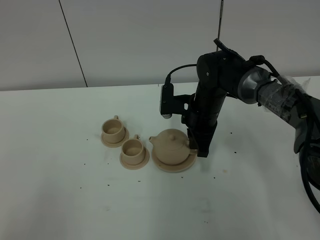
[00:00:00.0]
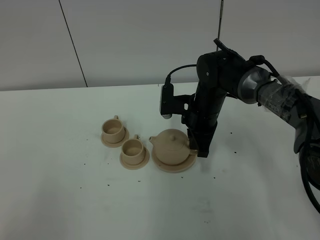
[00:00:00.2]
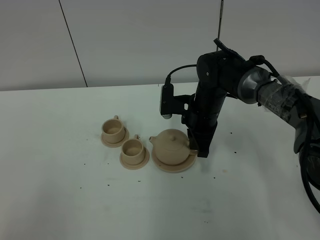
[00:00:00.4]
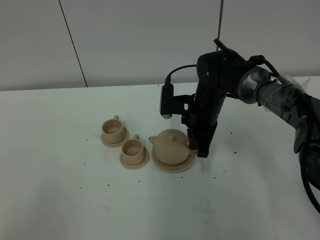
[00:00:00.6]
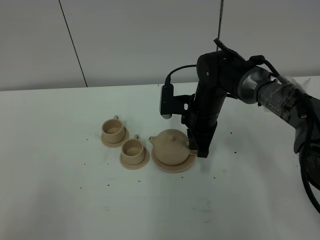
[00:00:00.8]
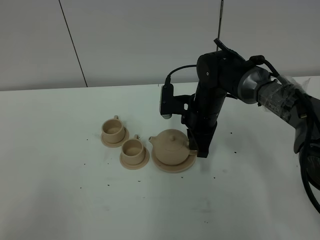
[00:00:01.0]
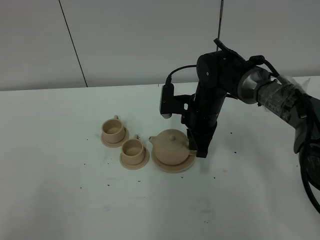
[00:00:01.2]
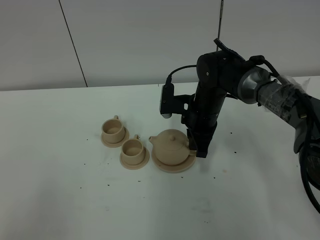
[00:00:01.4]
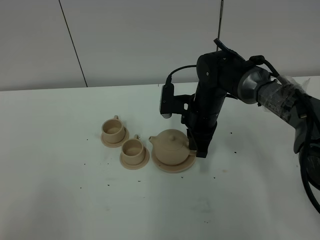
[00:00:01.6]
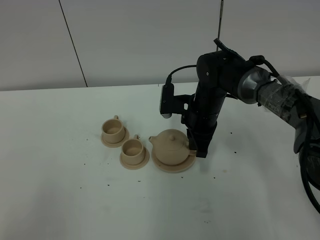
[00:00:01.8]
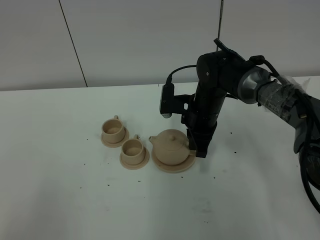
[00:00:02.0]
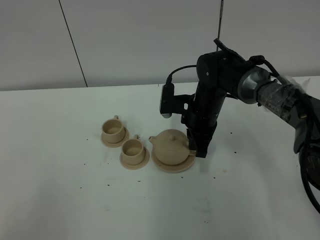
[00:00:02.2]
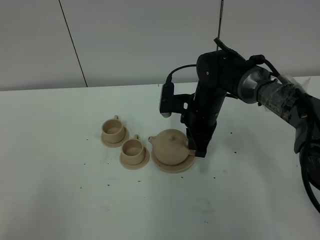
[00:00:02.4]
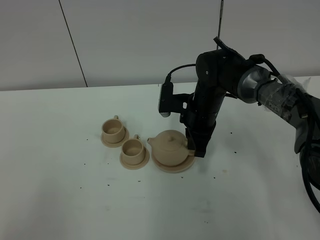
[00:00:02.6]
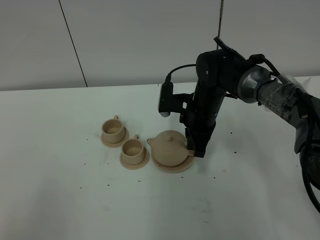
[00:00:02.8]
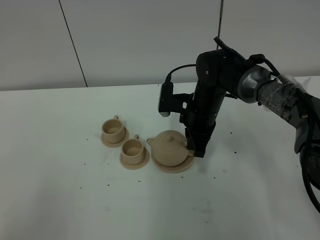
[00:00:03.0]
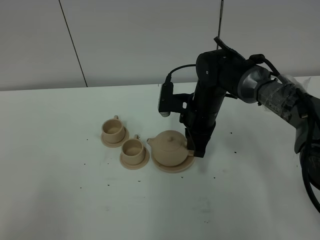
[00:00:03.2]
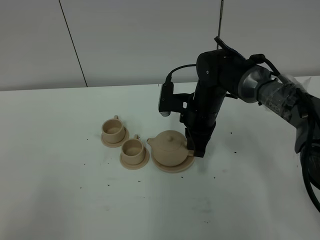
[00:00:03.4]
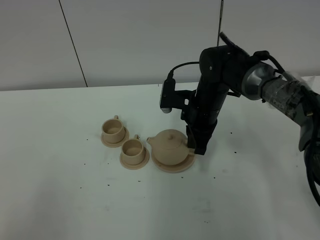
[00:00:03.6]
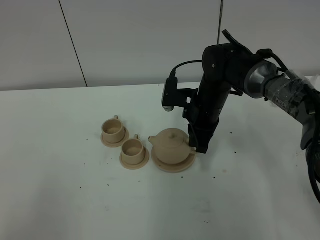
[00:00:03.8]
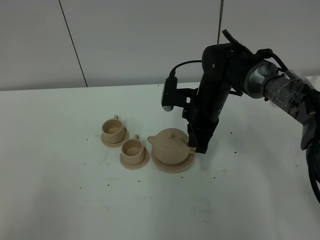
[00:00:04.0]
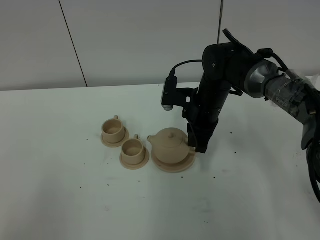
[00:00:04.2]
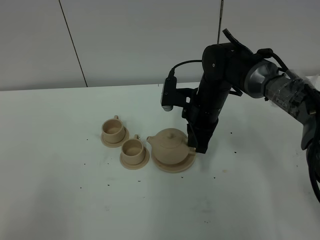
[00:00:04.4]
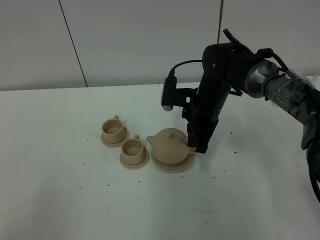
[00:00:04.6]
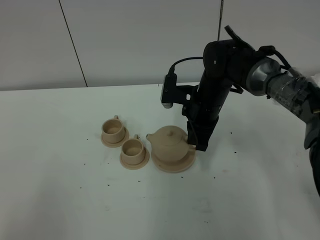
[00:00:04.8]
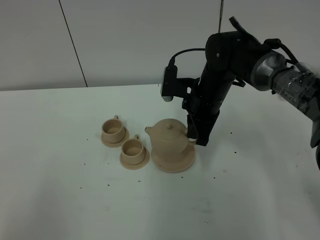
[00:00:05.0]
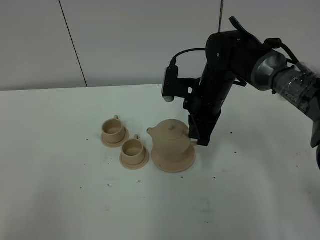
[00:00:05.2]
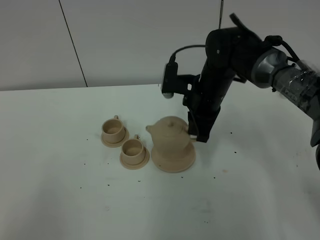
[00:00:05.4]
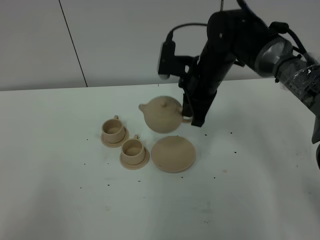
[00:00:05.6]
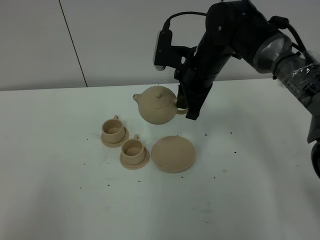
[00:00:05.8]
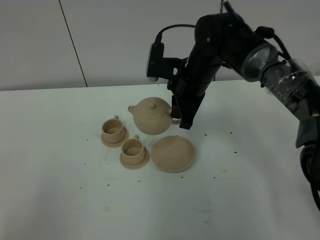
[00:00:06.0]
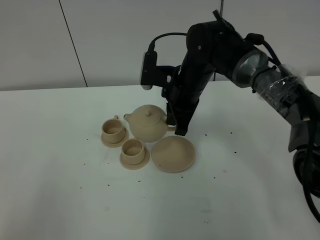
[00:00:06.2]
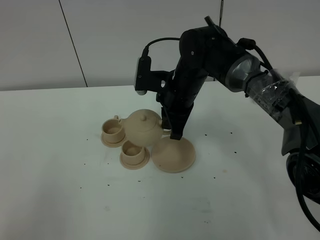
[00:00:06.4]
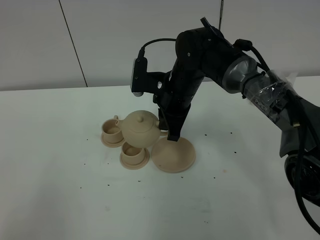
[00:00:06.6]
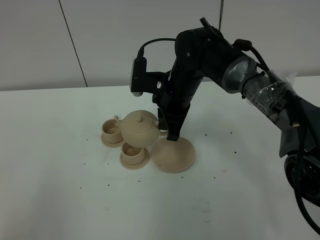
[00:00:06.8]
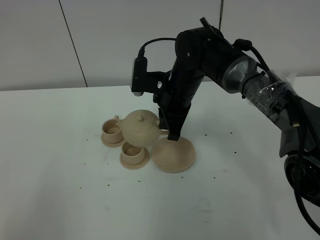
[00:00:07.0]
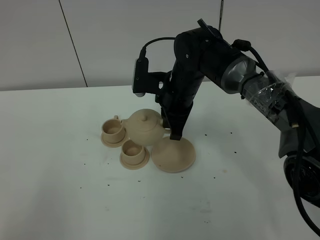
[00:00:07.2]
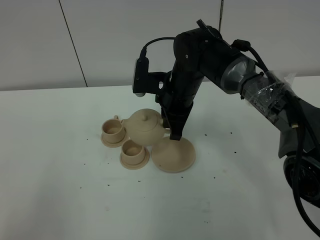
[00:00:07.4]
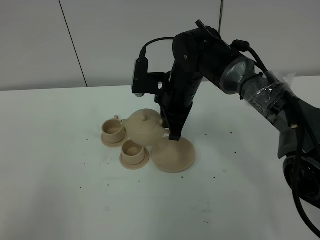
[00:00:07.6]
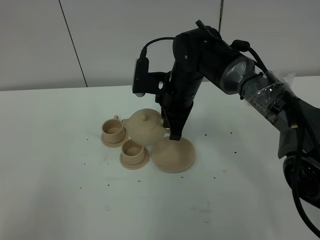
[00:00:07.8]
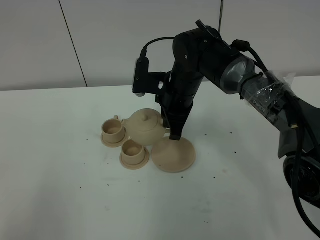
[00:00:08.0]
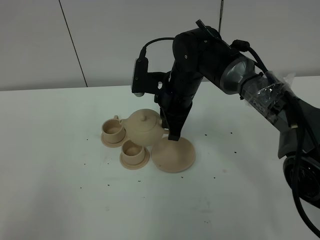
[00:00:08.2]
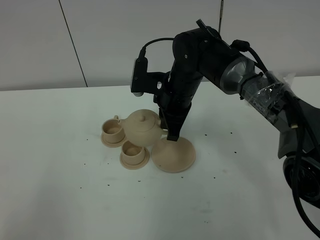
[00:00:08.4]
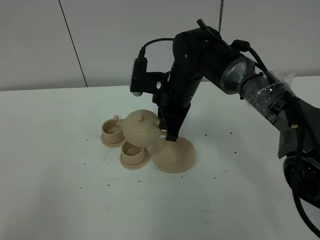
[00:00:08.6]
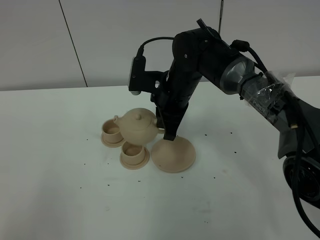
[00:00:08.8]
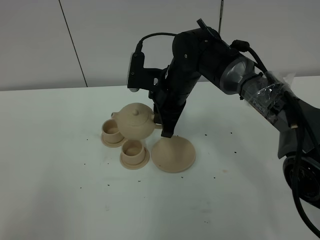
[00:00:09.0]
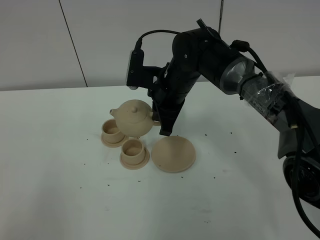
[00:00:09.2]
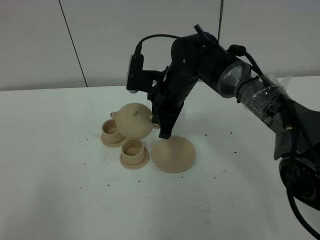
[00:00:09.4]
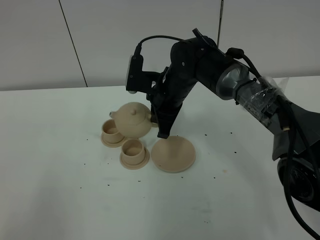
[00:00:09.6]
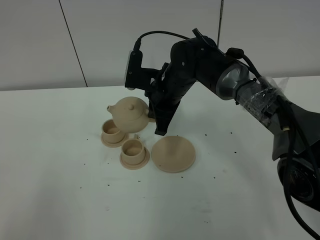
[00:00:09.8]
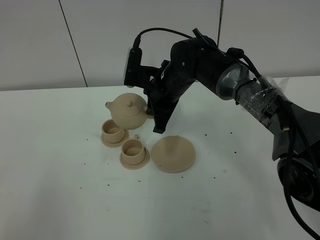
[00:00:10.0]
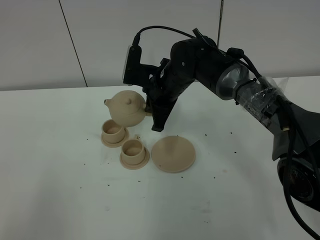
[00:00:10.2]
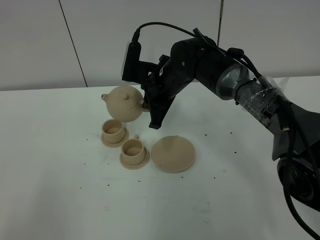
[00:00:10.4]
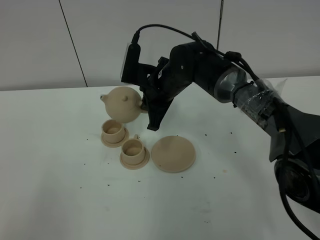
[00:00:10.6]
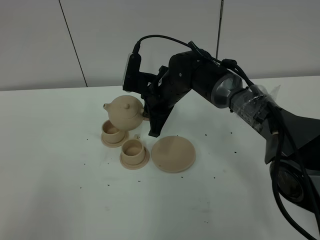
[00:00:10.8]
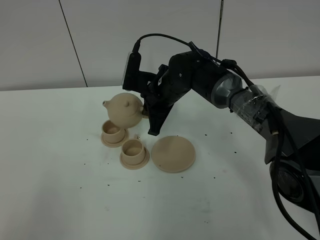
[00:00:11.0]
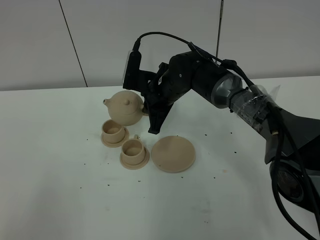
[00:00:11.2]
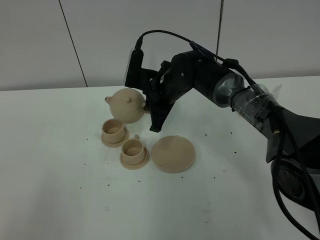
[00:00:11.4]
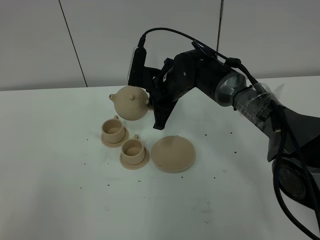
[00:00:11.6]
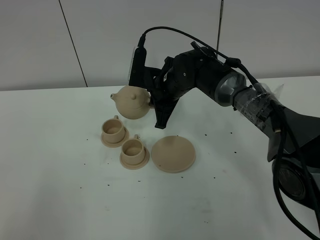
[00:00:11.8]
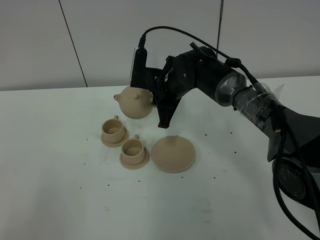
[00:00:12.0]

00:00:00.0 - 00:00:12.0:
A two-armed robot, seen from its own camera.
Task of the whole recording: grasp the brown teapot and pour the tea into the two brown teacups one by one, put the brown teapot back in its original place.
Step, 00:00:00.0 - 00:00:05.2: Pick up the teapot with the right gripper.
00:00:00.0 - 00:00:03.0: The two grippers keep their place.
00:00:03.0 - 00:00:04.4: Both grippers stay about where they are.
00:00:04.4 - 00:00:06.0: The right gripper travels upward by about 5 cm.
00:00:06.0 - 00:00:10.4: The grippers stay close to where they were, moving slightly.
00:00:10.4 - 00:00:12.0: There are only small adjustments of the grippers.

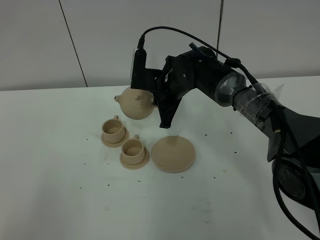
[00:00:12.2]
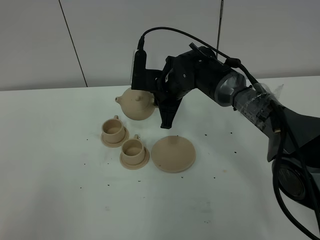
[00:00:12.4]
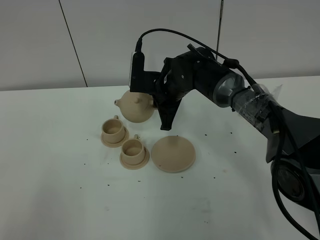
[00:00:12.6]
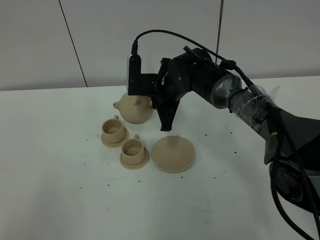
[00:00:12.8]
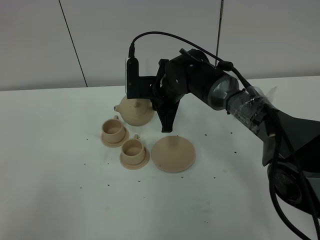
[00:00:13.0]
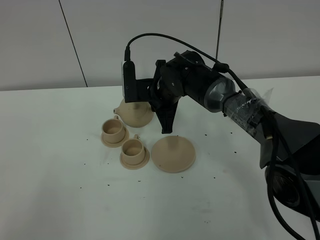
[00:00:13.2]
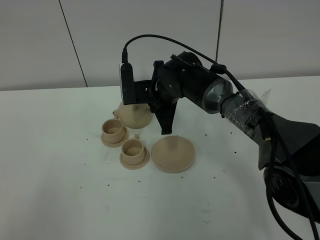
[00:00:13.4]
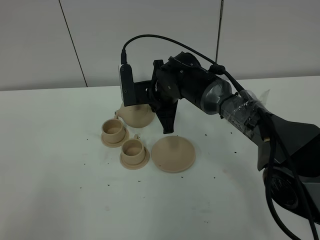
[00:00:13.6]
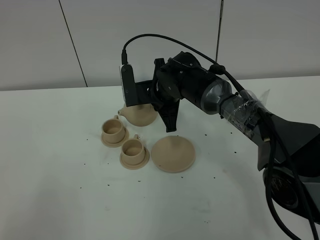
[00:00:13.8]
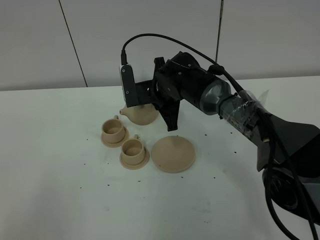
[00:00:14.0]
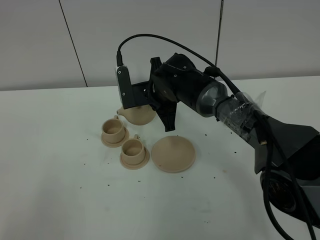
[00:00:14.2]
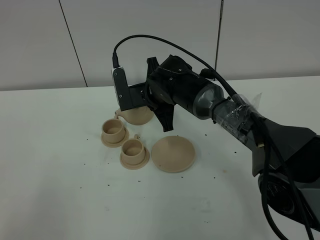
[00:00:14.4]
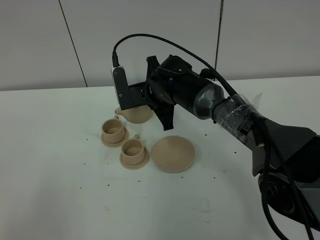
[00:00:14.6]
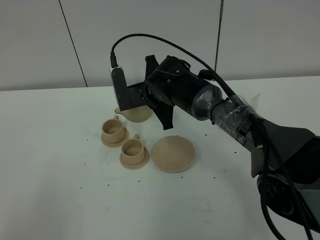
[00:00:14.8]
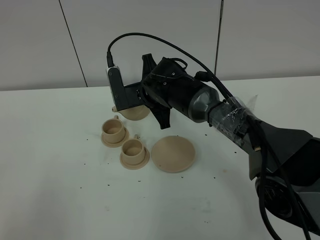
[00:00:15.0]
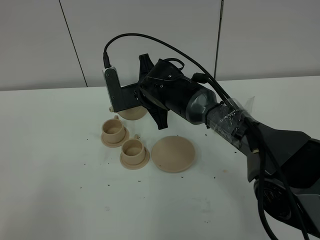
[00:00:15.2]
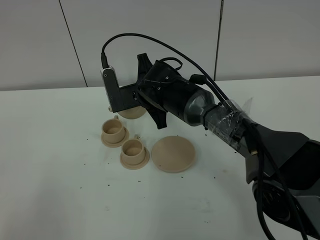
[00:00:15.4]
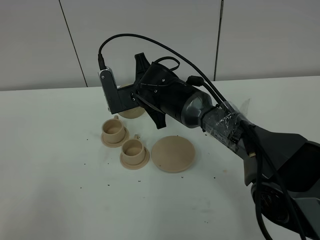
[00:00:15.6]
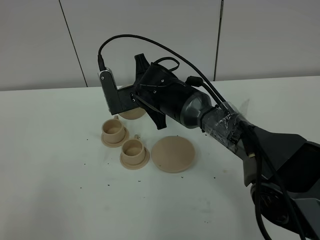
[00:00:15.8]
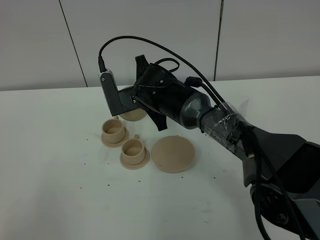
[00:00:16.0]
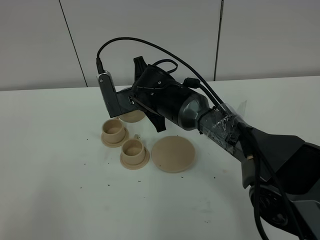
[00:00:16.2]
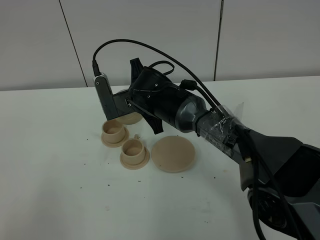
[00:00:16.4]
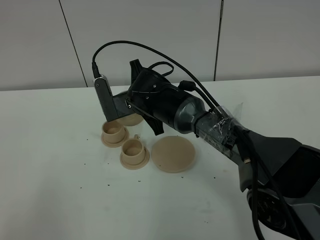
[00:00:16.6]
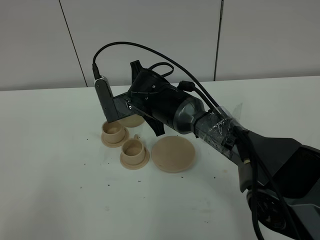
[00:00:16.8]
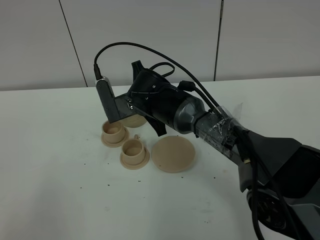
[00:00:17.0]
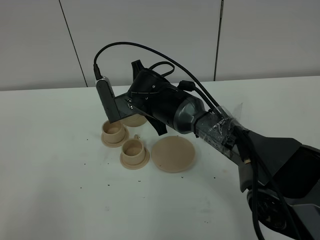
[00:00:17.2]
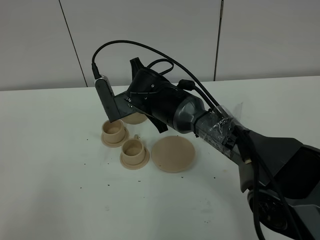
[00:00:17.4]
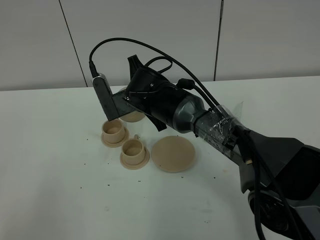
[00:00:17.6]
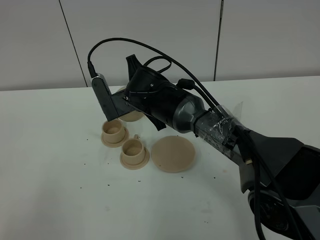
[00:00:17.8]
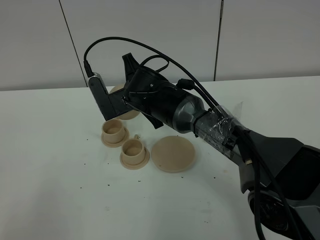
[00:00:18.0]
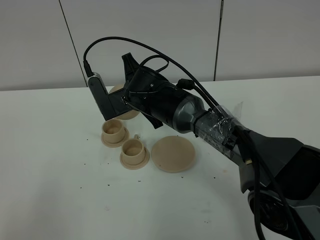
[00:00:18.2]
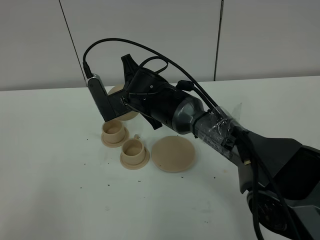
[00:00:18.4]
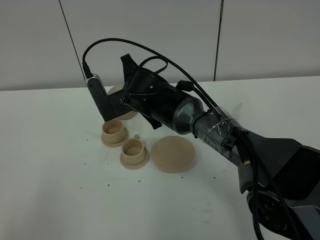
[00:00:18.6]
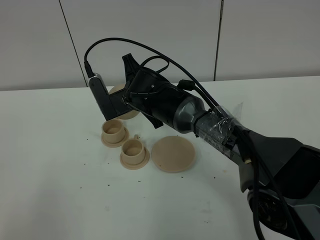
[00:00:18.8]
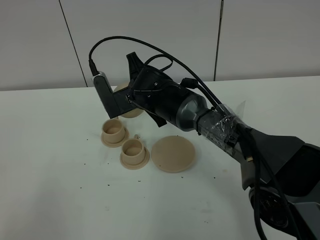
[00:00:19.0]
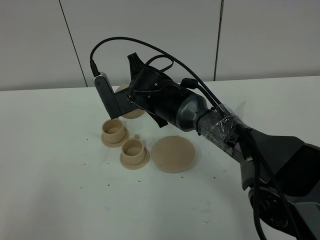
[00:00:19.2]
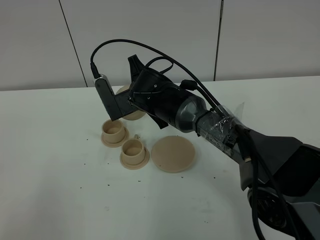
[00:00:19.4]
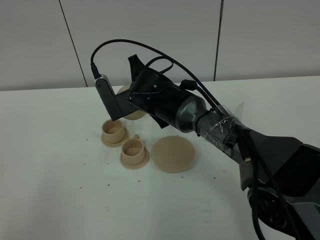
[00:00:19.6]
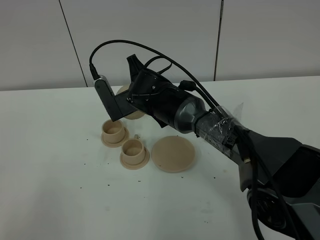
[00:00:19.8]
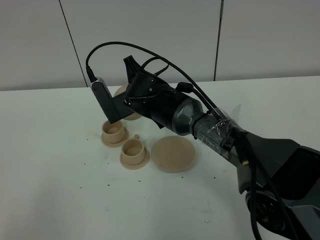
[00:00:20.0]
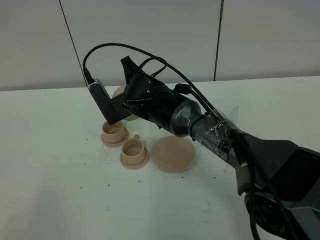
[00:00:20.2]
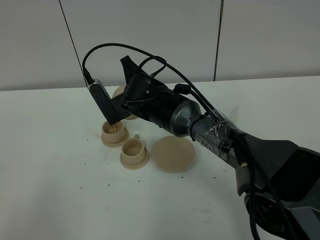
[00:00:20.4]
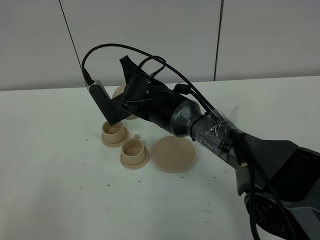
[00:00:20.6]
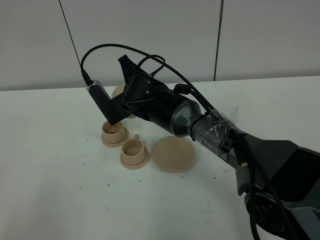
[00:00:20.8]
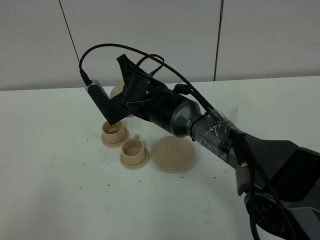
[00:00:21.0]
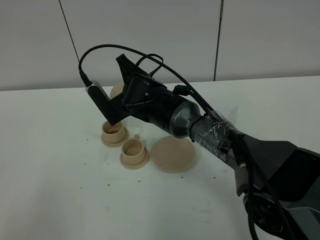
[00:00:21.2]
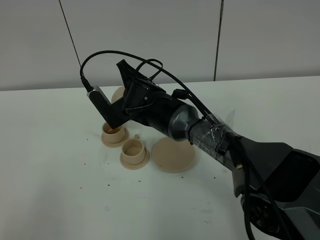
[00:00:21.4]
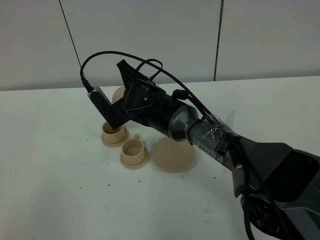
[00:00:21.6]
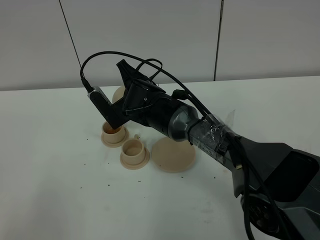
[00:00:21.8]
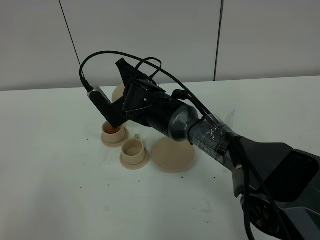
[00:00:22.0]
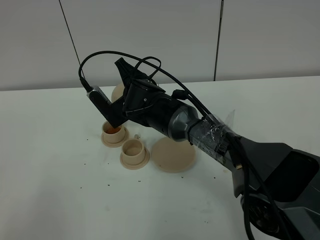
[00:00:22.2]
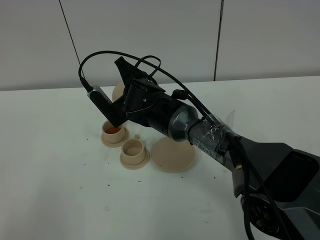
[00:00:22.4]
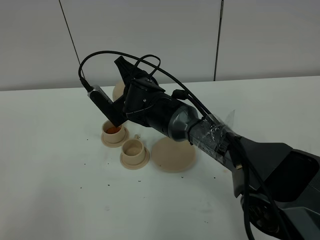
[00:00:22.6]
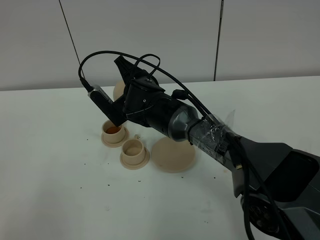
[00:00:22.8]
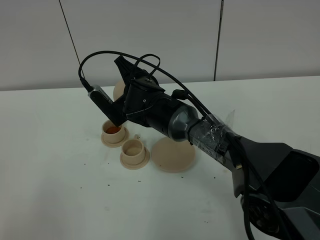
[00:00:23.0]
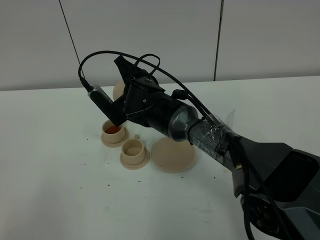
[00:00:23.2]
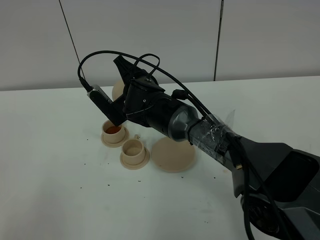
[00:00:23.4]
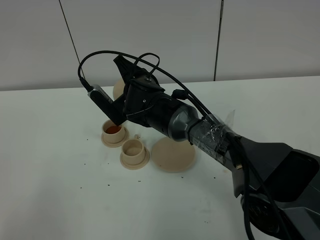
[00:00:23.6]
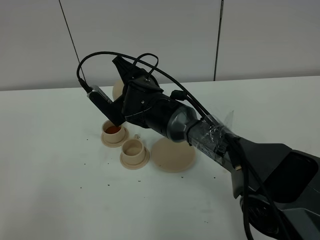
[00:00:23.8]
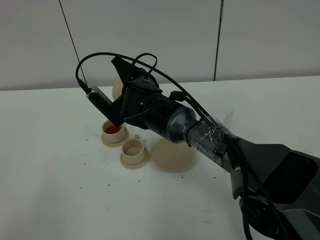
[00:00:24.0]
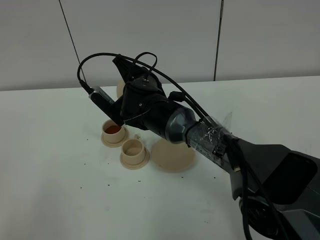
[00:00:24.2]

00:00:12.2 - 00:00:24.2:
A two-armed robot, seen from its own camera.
Task of the whole recording: grasp the brown teapot and pour the tea into the two brown teacups one by one, put the brown teapot back in its original place.
00:00:12.2 - 00:00:13.8: The grippers stay close to where they were, moving slightly.
00:00:13.8 - 00:00:16.6: The grippers make only small movements.
00:00:16.6 - 00:00:21.2: There are only small adjustments of the grippers.
00:00:21.2 - 00:00:24.2: The grippers move only a little.
